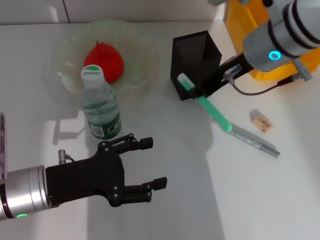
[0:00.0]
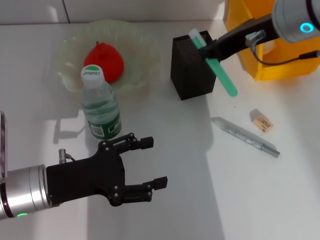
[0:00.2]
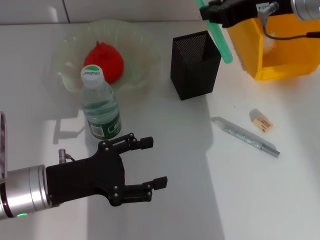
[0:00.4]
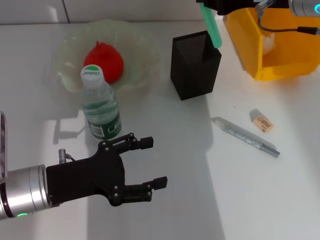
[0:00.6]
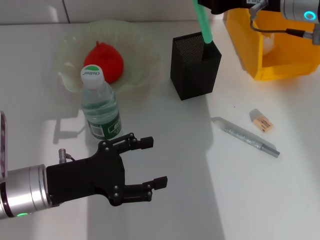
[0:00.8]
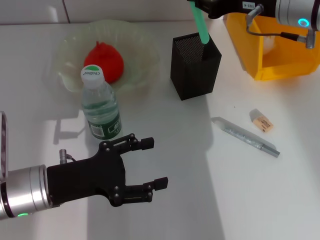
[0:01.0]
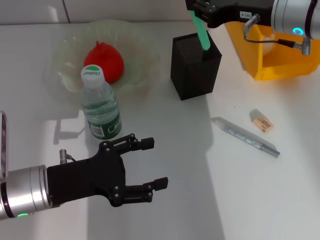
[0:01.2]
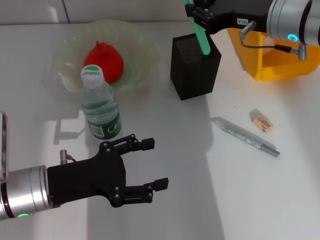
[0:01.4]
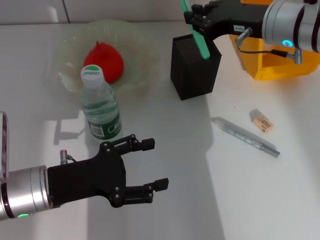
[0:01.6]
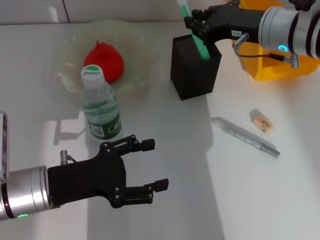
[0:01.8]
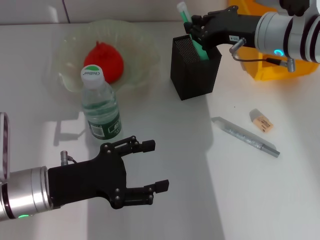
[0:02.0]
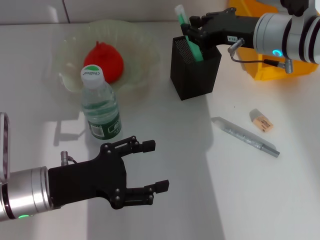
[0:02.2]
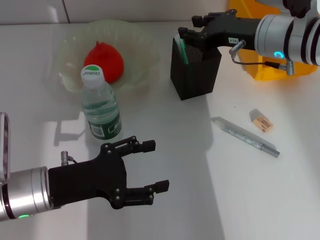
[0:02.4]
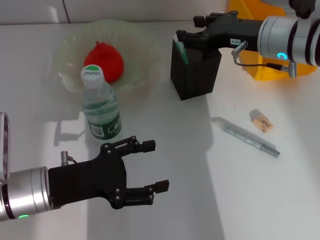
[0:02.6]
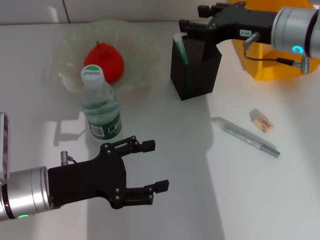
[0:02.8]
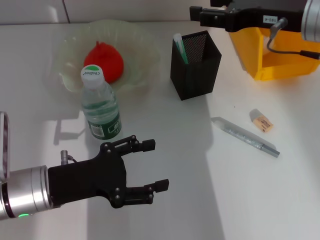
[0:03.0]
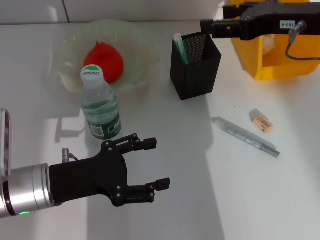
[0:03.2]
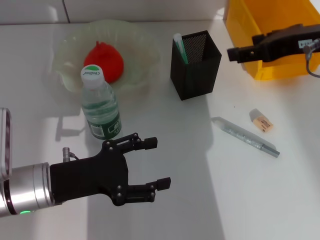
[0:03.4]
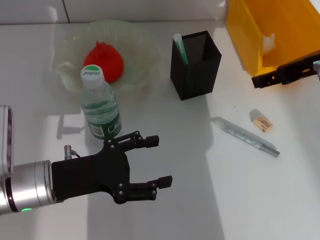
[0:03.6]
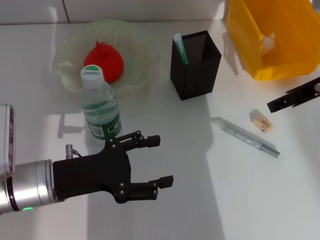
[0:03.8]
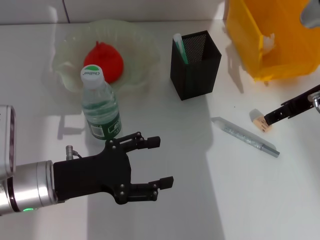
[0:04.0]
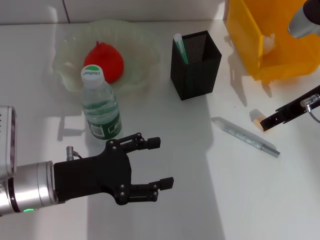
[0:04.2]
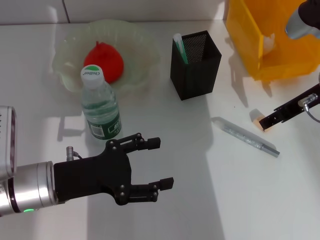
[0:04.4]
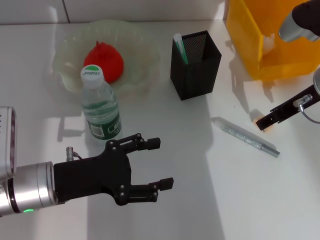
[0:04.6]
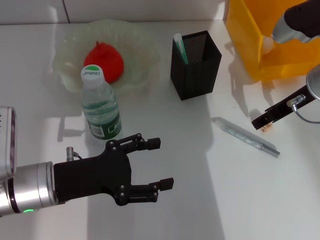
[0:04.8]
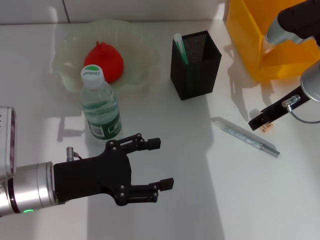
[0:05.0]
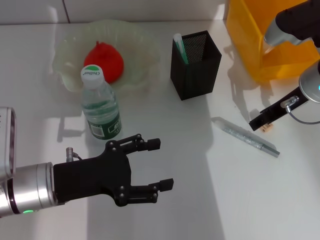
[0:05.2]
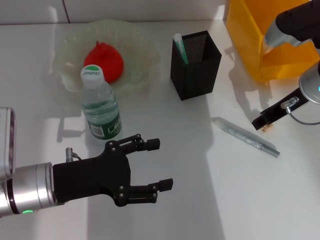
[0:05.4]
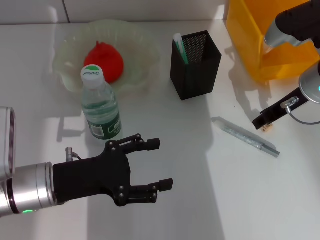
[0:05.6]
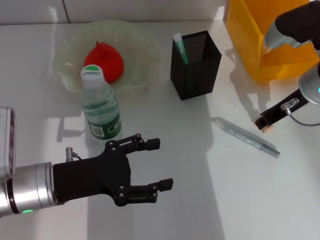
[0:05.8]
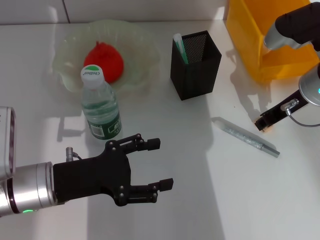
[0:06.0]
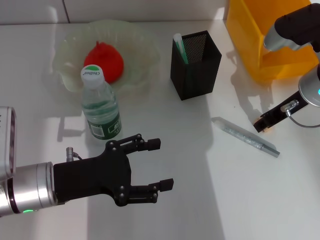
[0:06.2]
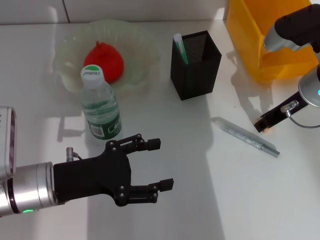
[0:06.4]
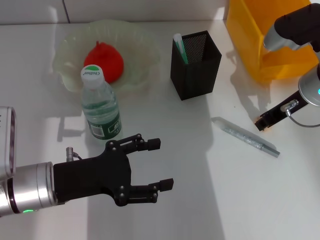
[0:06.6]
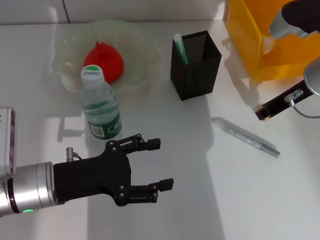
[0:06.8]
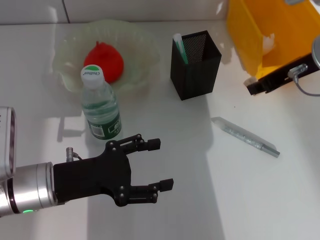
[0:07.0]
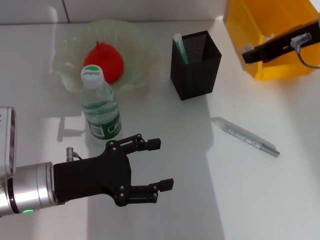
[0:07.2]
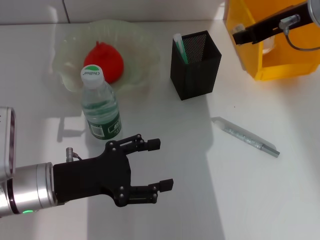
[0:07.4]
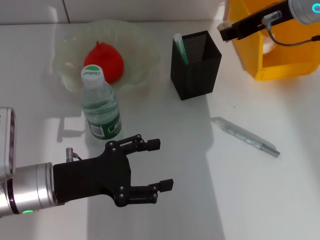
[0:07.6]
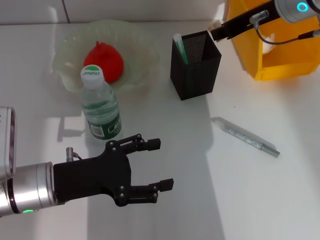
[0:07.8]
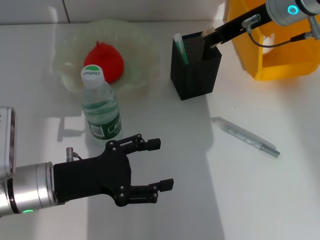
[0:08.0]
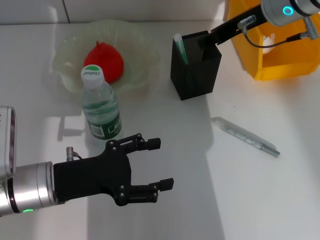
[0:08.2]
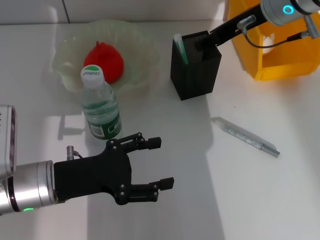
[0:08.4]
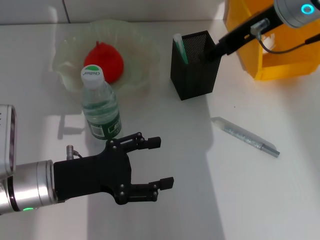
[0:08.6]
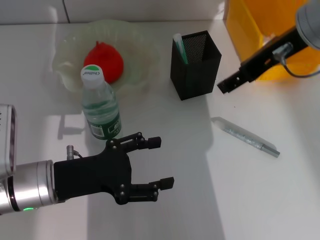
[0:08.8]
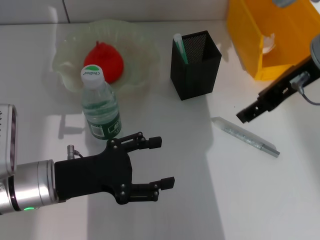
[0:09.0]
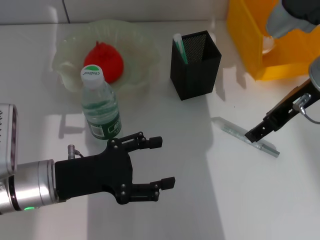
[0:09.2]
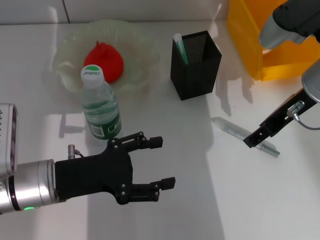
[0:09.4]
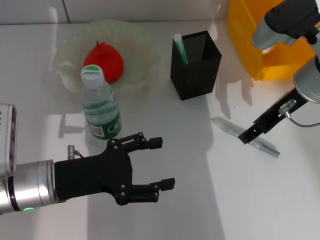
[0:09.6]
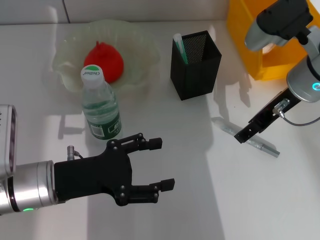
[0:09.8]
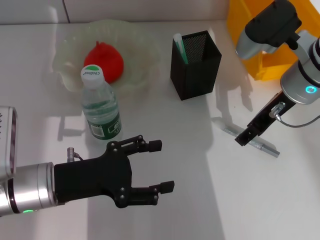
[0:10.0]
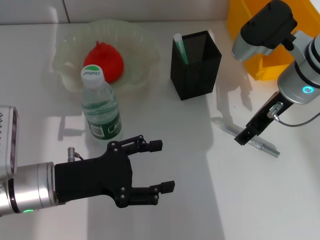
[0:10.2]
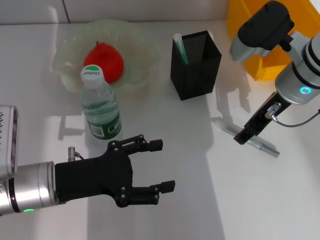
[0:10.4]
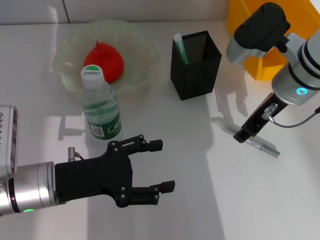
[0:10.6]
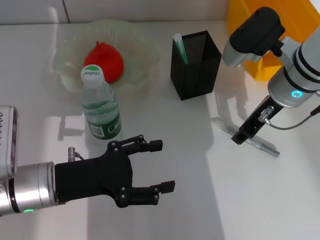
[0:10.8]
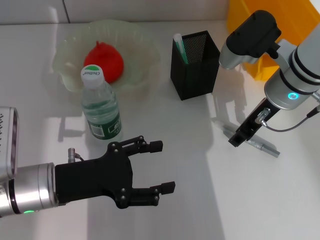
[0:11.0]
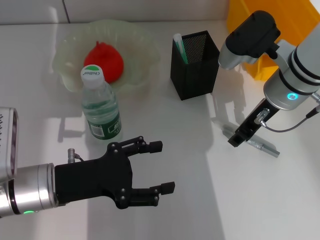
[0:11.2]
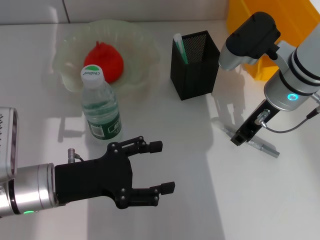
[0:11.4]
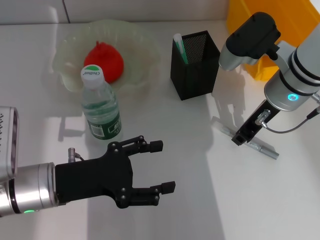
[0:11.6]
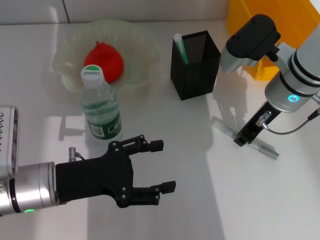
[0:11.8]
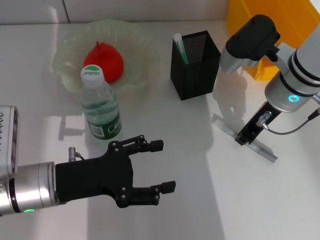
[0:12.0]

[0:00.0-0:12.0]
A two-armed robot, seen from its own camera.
Step, 0:00.0 to 0:02.2: Place the blue utility knife into the pen holder with the right hand.
Step, 0:02.6 to 0:06.4: Grab the eraser with the right hand.
Step, 0:06.6 to 0:08.0: Put the eraser into the pen holder with the right hand.
0:00.0 to 0:01.6: The right gripper moves roughly 5 cm upward and comes back.
0:01.6 to 0:03.0: The right gripper ends up some 5 cm from where it was, and opens.
0:03.0 to 0:04.4: The right gripper shifts by some 5 cm.
0:04.4 to 0:06.0: The right gripper closes.
0:06.0 to 0:07.6: The right gripper is displaced upward by roughly 10 cm.
0:07.6 to 0:09.0: The right gripper shifts about 5 cm backward, and opens its fingers.
0:09.0 to 0:10.4: The right gripper moves downward, about 5 cm.
0:10.4 to 0:12.0: The right gripper closes up.

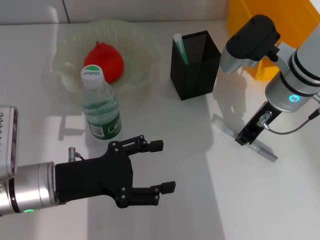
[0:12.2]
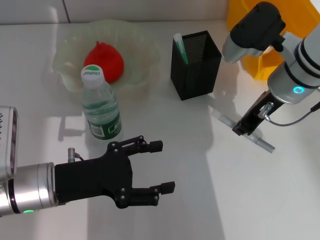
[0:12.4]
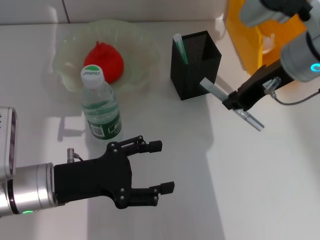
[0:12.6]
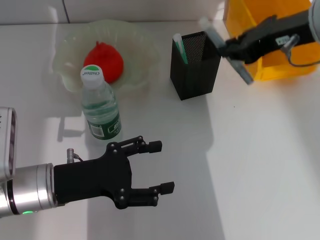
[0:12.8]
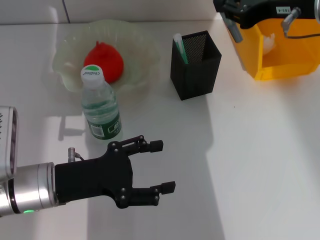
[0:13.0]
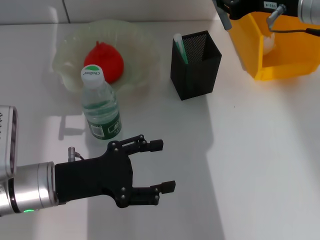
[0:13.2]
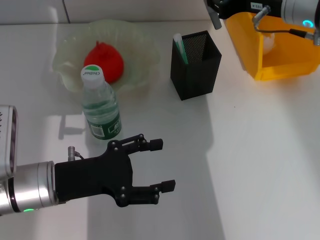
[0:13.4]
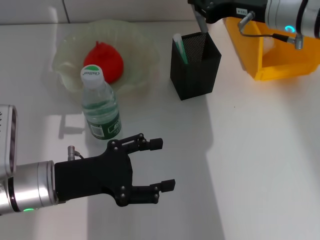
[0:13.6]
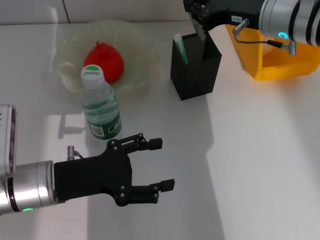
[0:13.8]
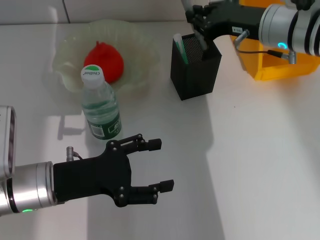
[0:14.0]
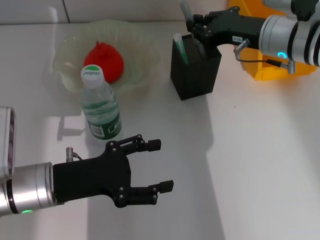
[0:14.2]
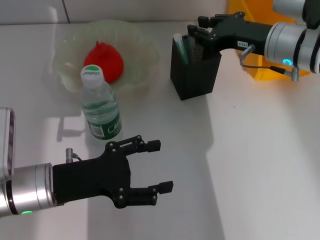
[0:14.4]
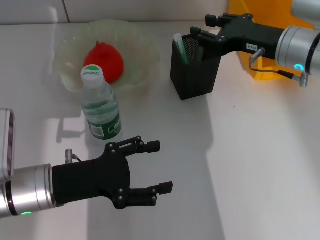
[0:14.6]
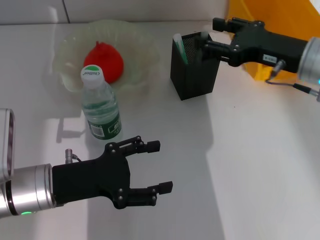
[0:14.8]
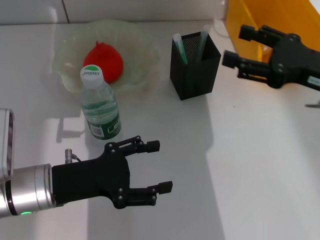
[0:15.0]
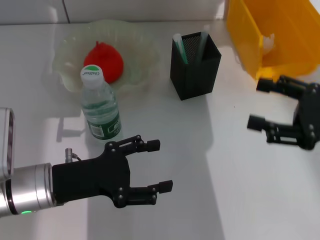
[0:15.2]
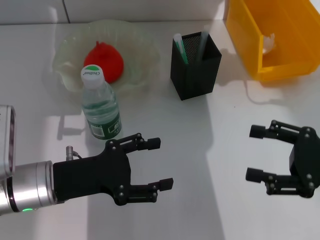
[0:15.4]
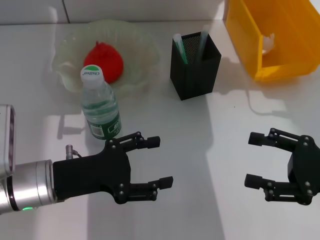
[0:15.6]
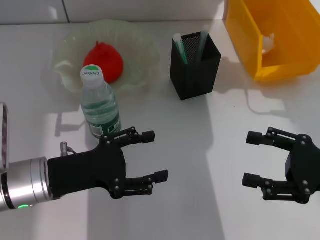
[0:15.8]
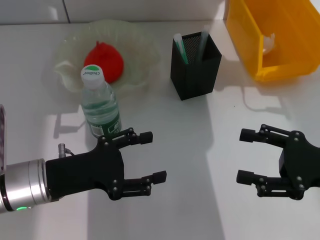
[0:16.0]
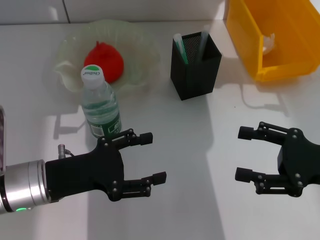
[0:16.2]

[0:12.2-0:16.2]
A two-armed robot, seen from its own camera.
Step, 0:12.4 to 0:14.4: Place the gray glue into the pen holder with the right hand.
0:12.2 to 0:13.6: The right gripper is displaced upward by roughly 5 cm.
0:13.6 to 0:14.8: The right gripper heads backward, covering roughly 5 cm, and opens.
0:14.8 to 0:16.2: The right gripper goes about 15 cm backward, to the right and downward, and opens up.

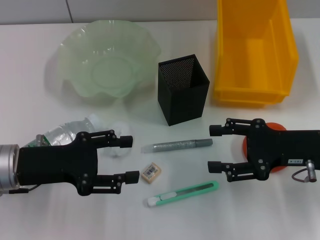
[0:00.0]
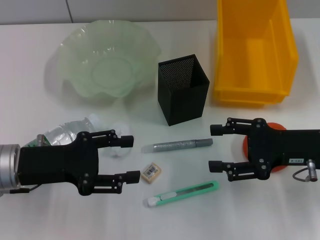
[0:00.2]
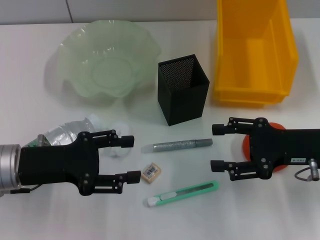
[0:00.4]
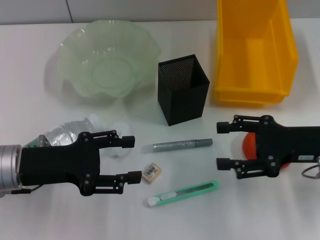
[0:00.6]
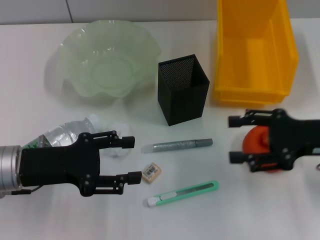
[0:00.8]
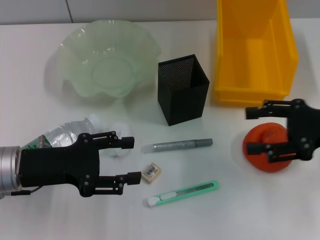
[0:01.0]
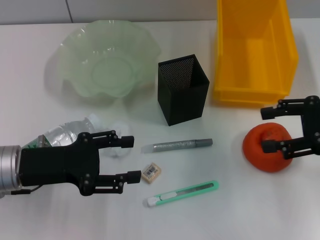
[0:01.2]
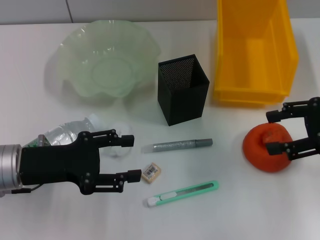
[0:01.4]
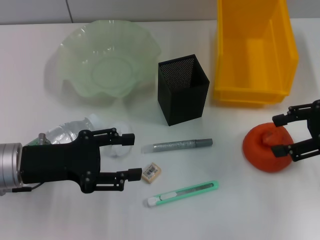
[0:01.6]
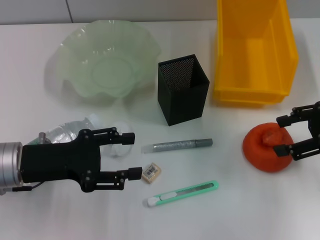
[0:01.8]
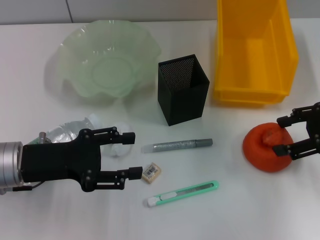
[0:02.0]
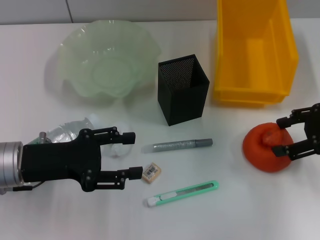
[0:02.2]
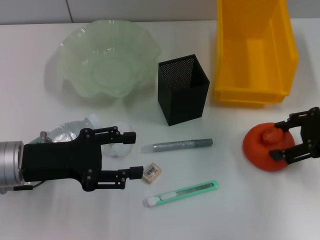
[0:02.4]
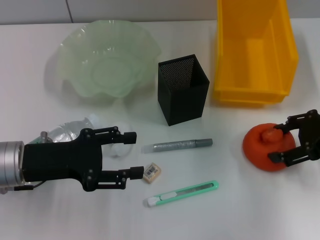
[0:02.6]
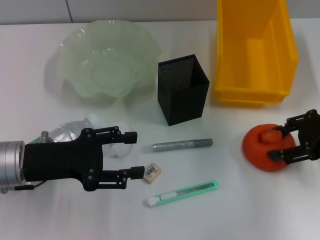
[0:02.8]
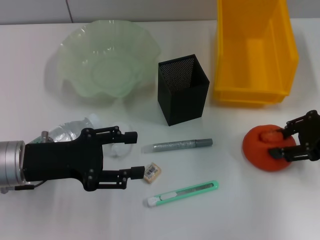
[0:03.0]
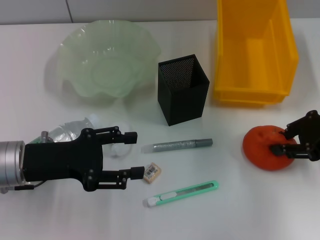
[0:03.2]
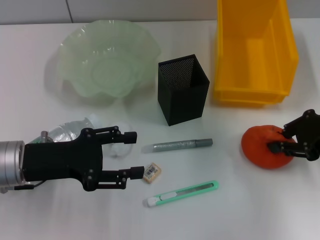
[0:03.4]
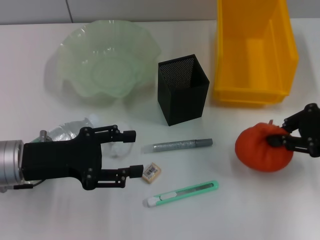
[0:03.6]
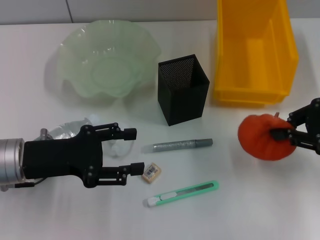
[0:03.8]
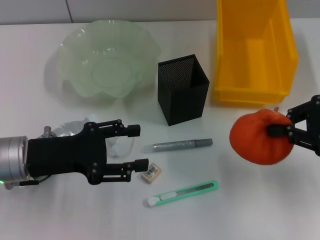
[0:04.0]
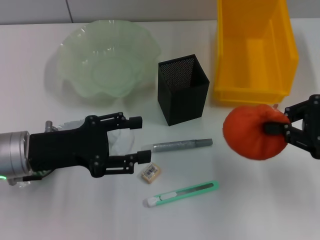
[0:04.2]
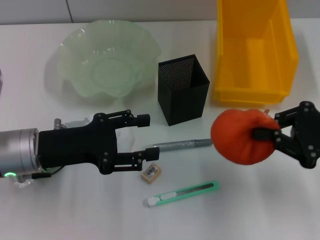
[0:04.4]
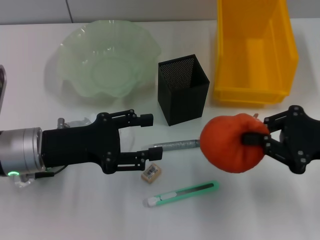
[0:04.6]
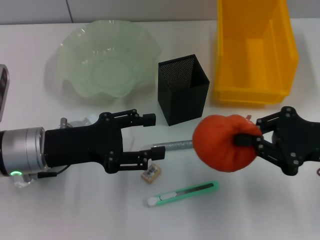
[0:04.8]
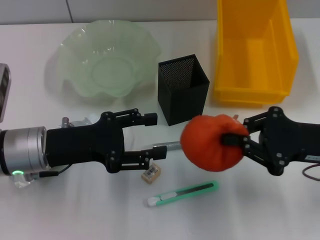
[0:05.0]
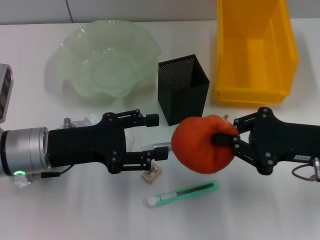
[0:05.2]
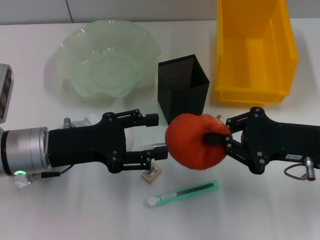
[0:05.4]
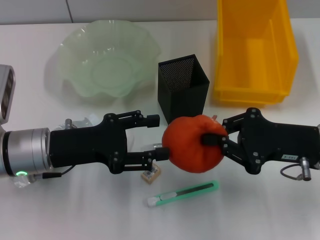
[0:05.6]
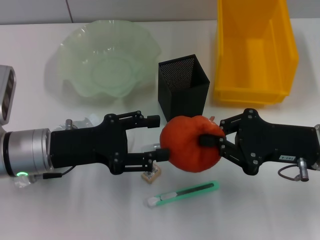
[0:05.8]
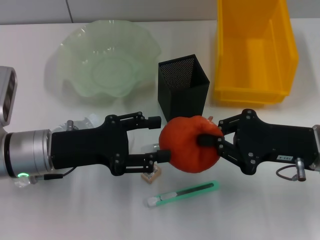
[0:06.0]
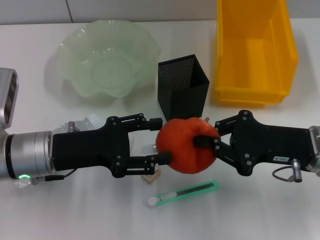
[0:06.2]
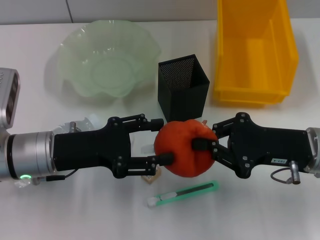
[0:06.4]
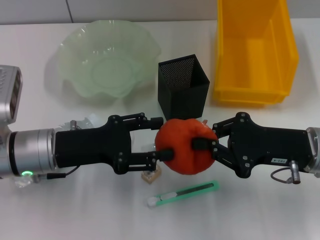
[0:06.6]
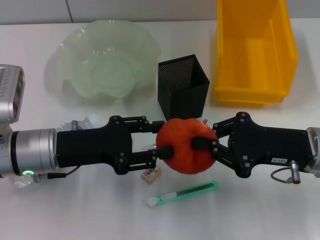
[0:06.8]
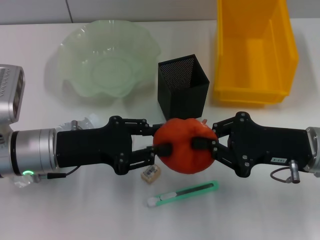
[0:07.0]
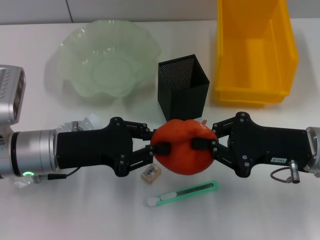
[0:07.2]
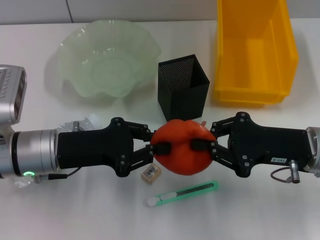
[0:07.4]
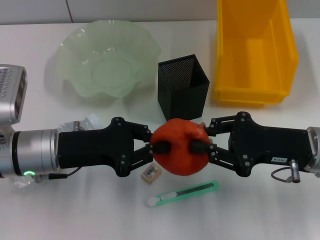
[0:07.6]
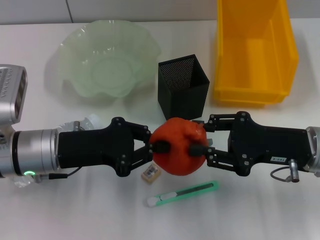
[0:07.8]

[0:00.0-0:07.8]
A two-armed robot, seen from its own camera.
Step, 0:00.0 to 0:03.2: Grab the orange with the right hand.
0:00.0 to 0:01.6: The right gripper is displaced upward and to the right by some 10 cm.
0:01.6 to 0:03.2: The grippers stay close to where they were, moving slightly.
0:03.2 to 0:04.6: The right gripper goes approximately 5 cm backward, and closes.
0:04.6 to 0:06.2: The right gripper moves to the left, about 5 cm.
0:06.2 to 0:07.8: The left gripper closes.
